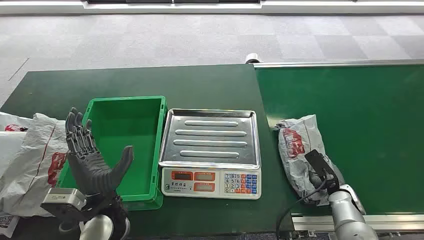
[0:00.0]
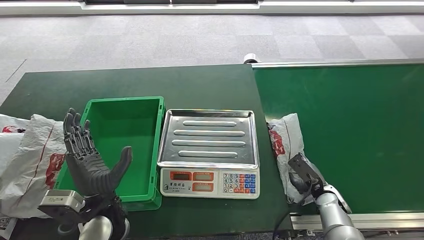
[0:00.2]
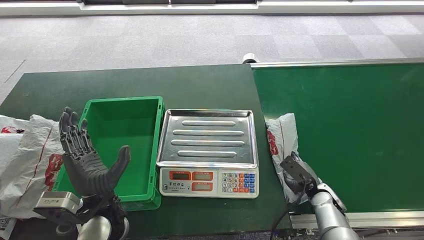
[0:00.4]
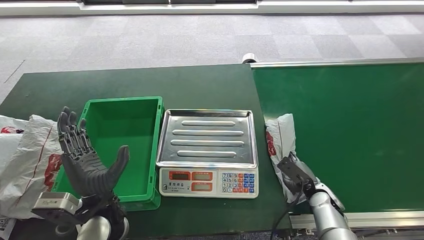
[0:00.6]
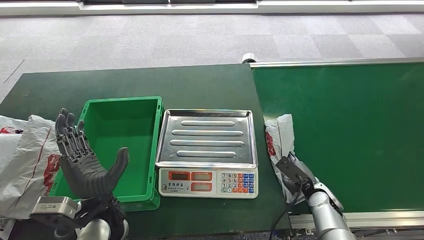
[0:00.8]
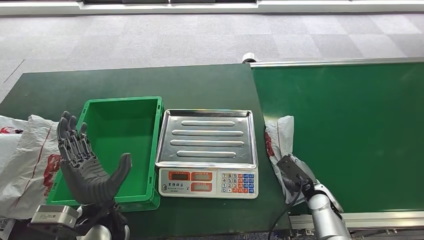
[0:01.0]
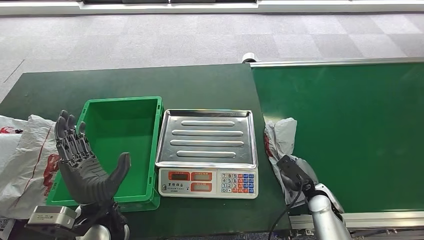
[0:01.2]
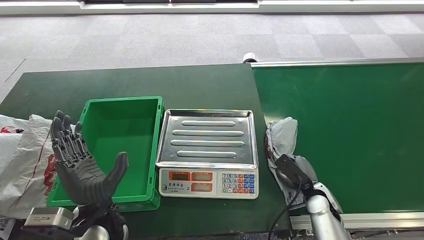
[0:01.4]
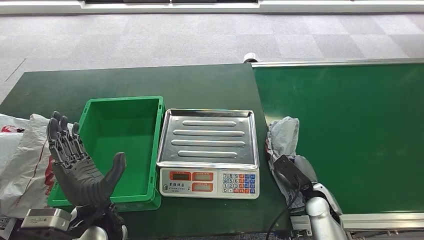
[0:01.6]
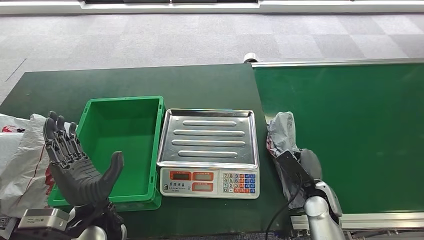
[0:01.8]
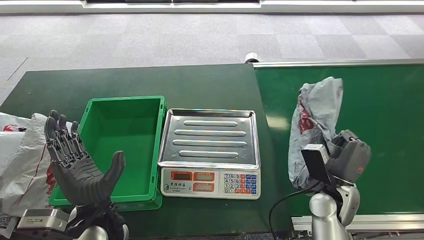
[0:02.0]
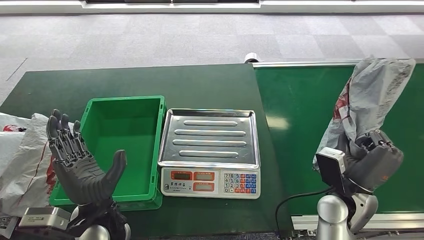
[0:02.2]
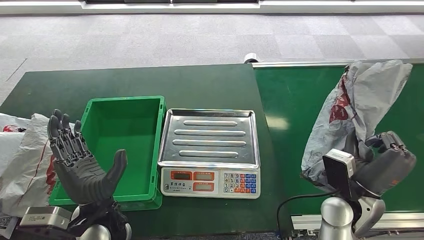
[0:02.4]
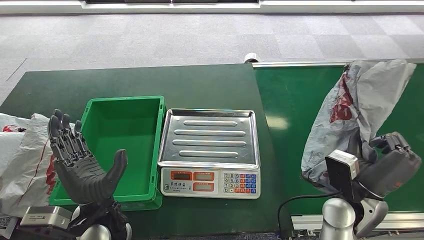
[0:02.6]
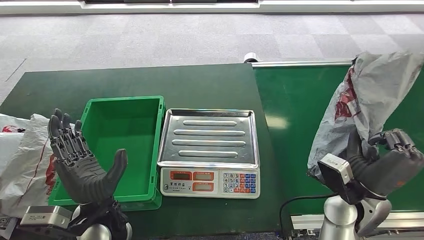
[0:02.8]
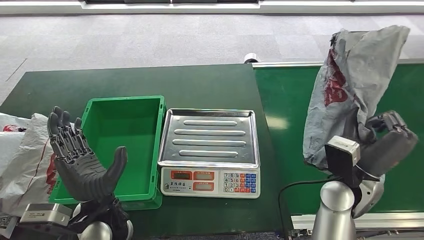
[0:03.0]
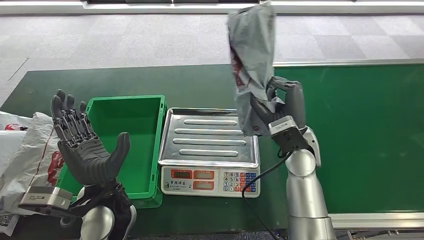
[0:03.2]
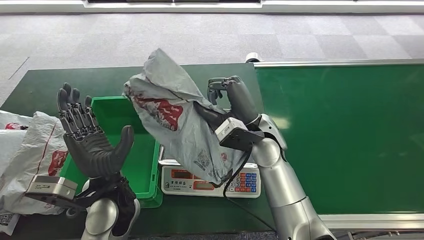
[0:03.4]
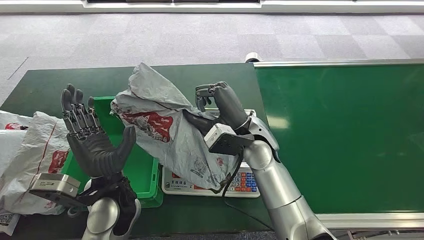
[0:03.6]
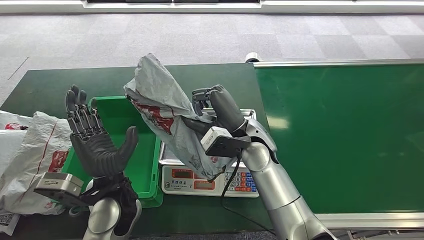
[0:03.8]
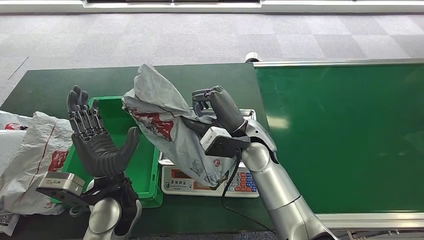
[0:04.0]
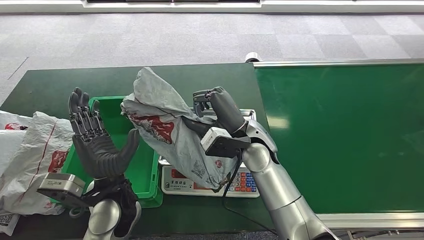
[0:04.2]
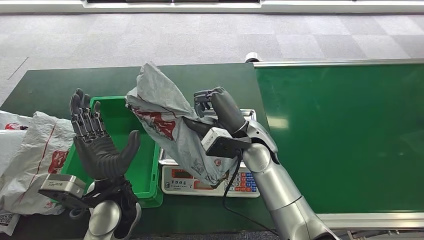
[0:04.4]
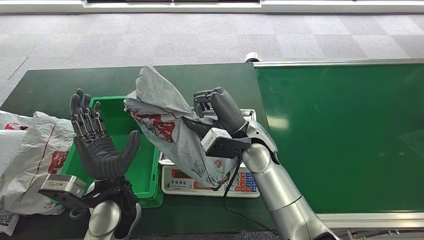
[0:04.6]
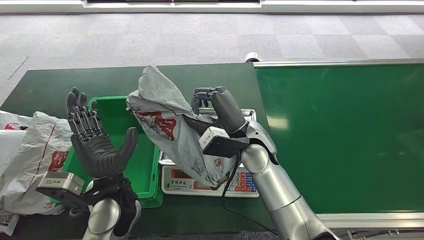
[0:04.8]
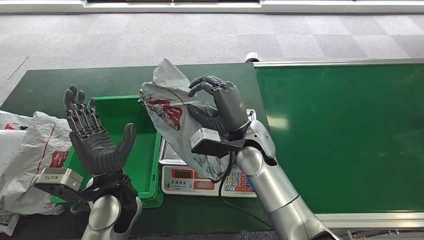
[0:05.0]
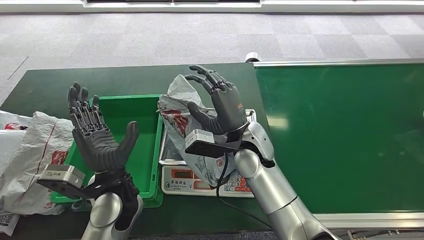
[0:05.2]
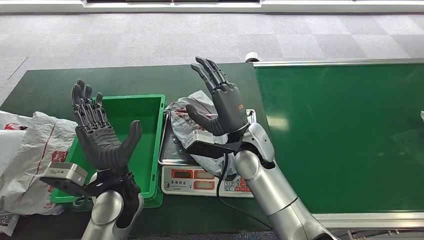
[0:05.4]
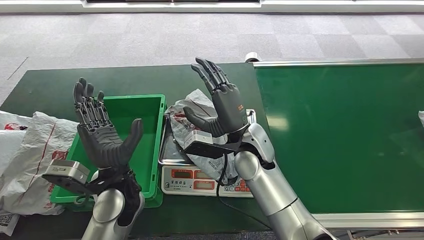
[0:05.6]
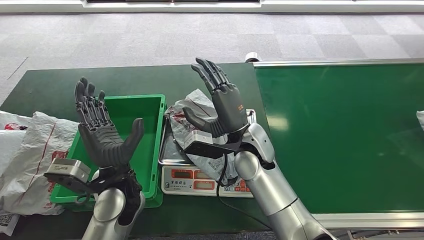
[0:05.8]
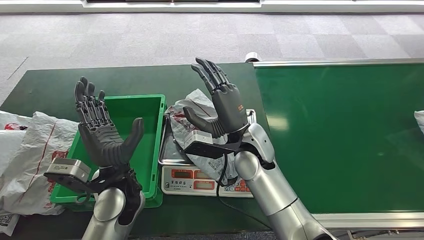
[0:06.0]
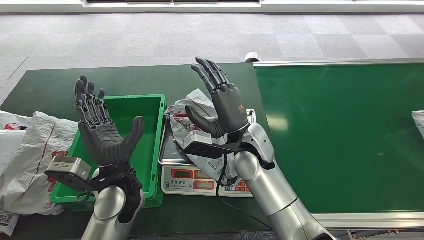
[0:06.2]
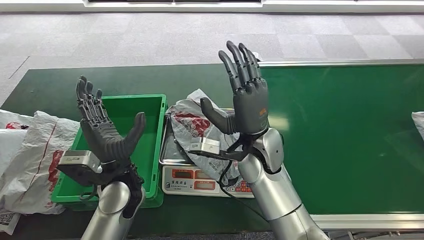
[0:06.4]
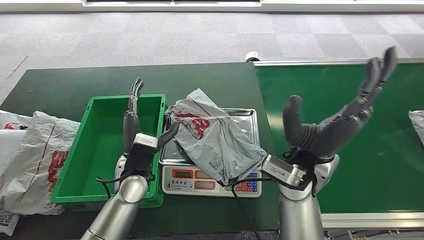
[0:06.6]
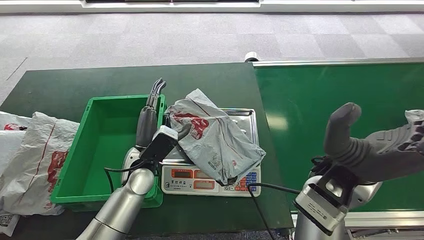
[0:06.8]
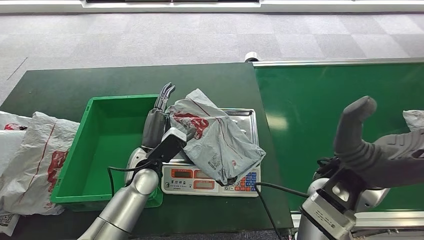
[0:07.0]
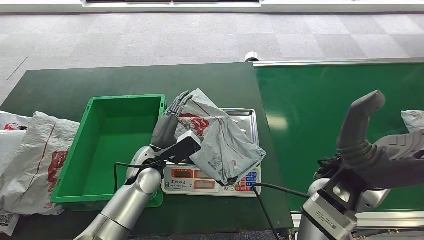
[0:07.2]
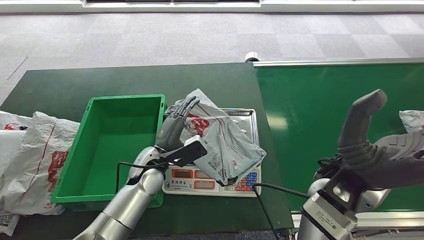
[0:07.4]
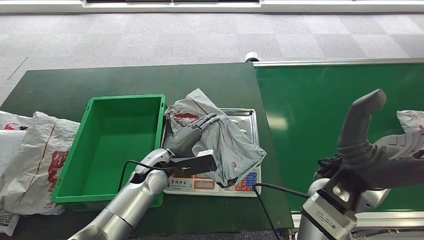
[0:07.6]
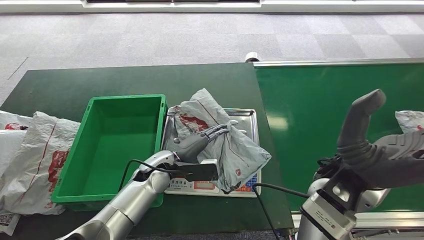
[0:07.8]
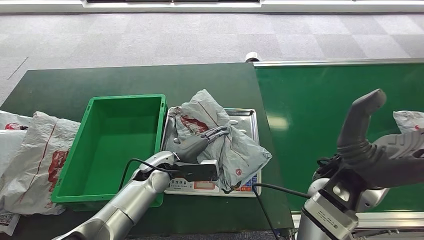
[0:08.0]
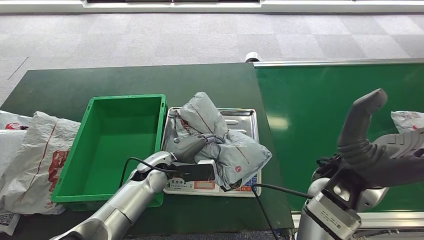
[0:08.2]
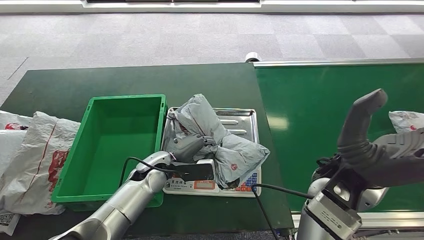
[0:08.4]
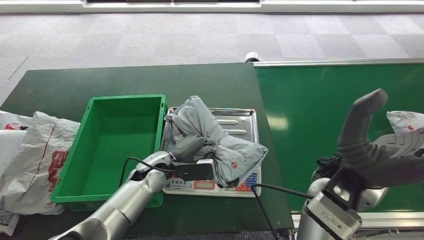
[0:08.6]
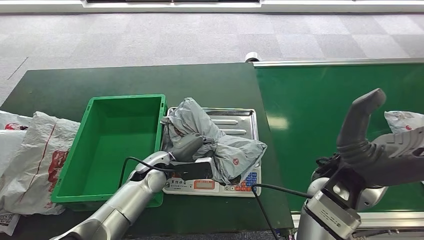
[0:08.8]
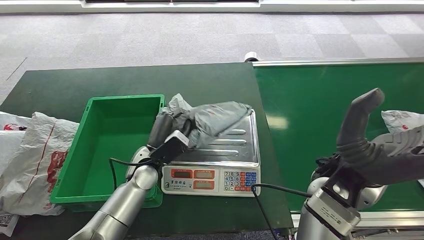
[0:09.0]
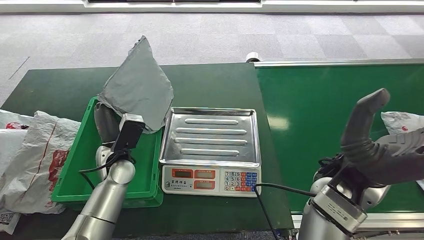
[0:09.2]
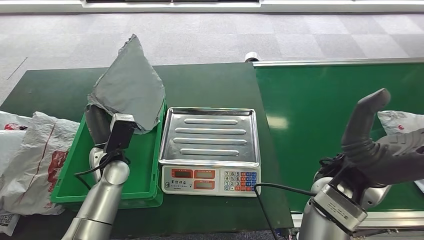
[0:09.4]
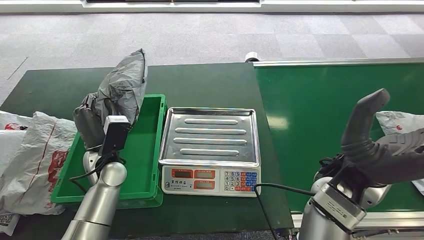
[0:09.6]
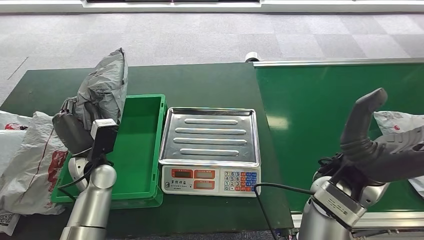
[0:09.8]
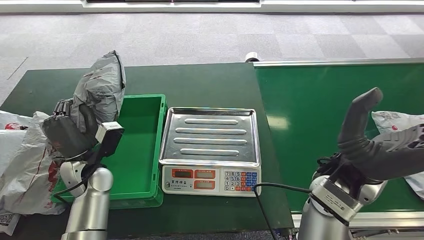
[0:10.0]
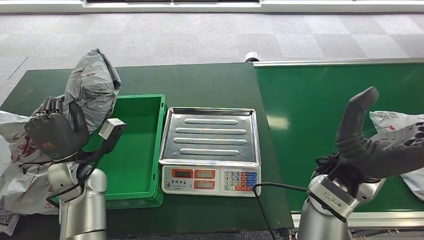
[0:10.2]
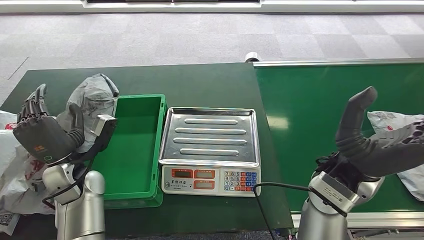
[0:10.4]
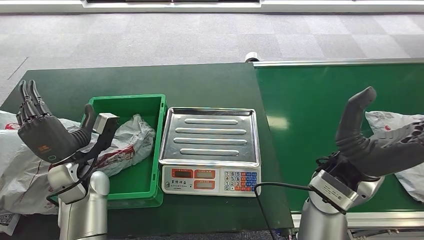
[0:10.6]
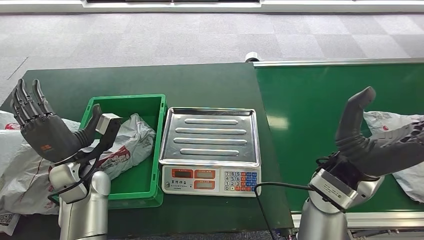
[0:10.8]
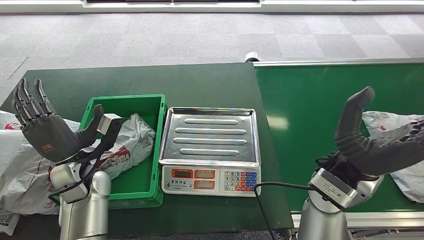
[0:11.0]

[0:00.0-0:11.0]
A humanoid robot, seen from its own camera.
Step, 0:00.0 to 0:02.4: Pick up the package from the conveyor belt.
Step, 0:02.6 to 0:06.0: Place the package onto the inbound machine.
Step, 0:06.4 to 0:09.2: Pick up the package from the inbound machine.
Step, 0:09.4 to 0:11.0: Place the package into the parcel locker.
0:07.8 to 0:09.4: The left hand travels to the left by approximately 10 cm.
0:09.4 to 0:11.0: The left hand shifts by some 5 cm.

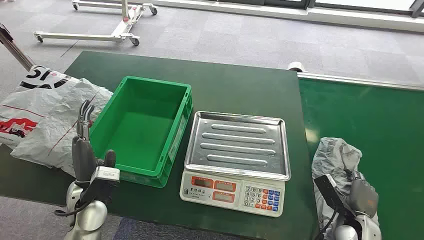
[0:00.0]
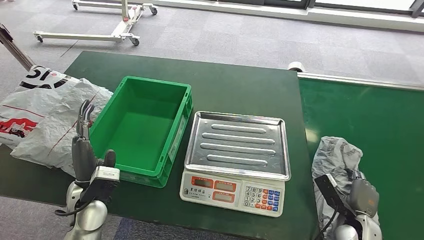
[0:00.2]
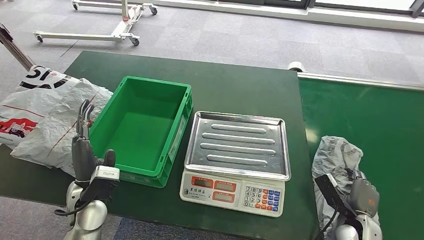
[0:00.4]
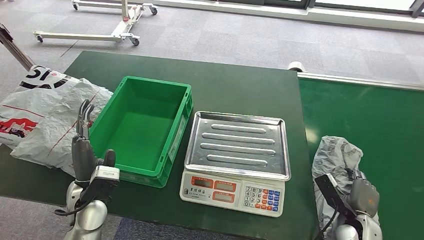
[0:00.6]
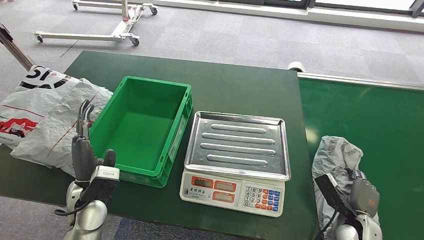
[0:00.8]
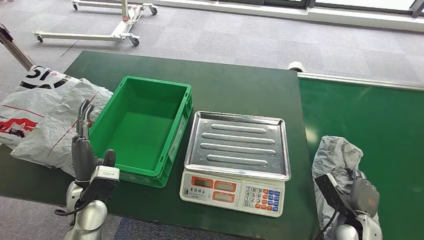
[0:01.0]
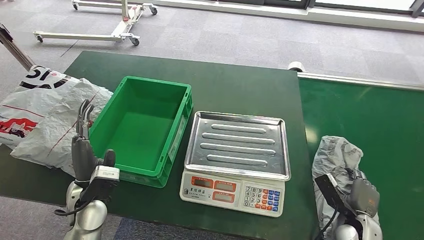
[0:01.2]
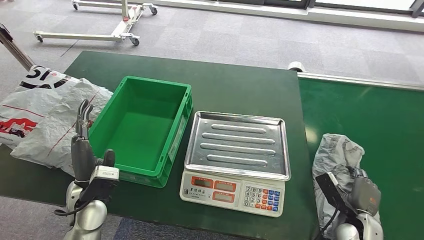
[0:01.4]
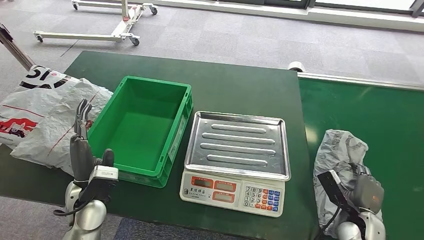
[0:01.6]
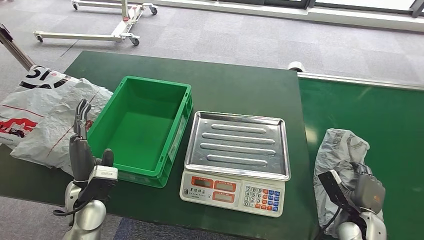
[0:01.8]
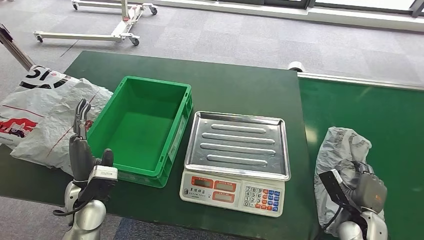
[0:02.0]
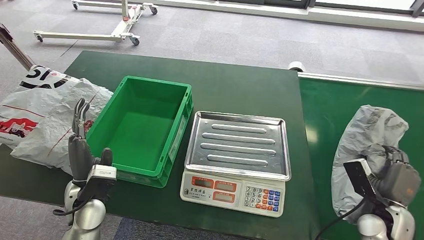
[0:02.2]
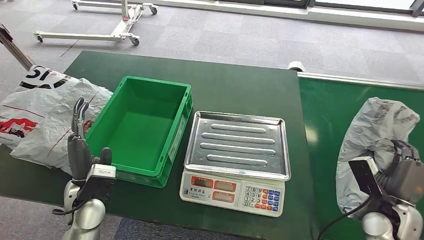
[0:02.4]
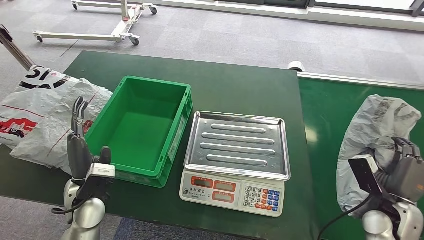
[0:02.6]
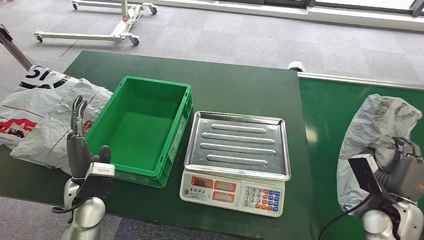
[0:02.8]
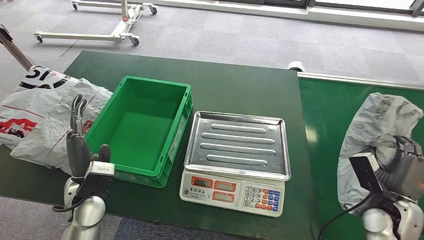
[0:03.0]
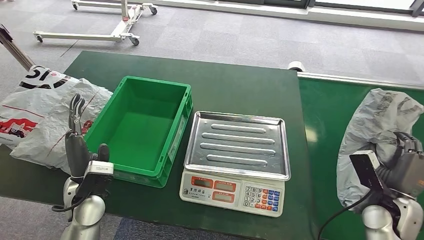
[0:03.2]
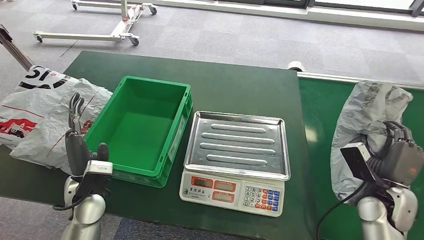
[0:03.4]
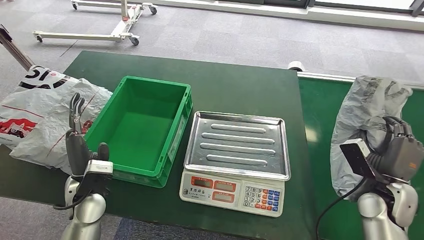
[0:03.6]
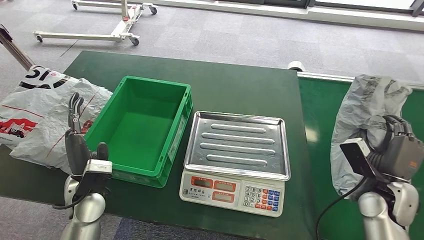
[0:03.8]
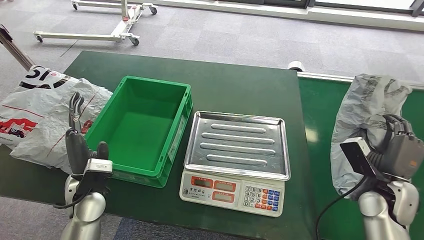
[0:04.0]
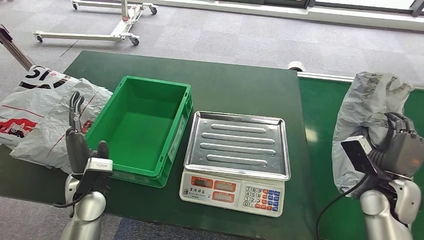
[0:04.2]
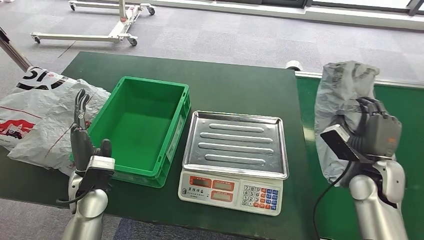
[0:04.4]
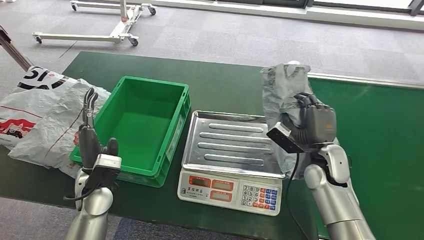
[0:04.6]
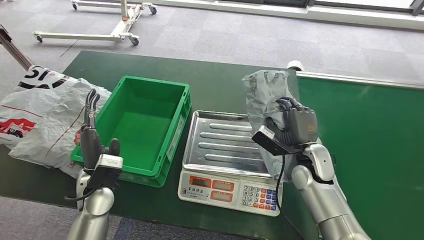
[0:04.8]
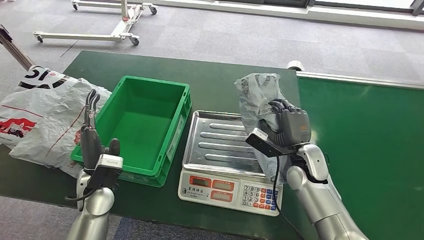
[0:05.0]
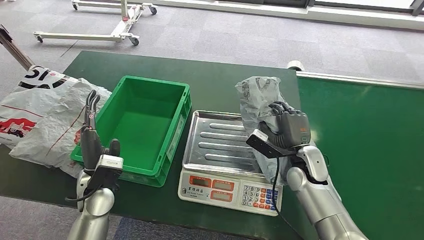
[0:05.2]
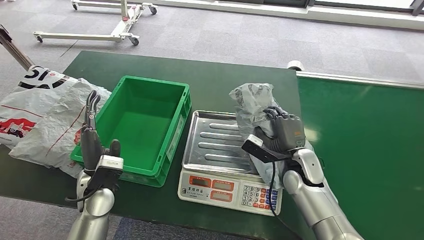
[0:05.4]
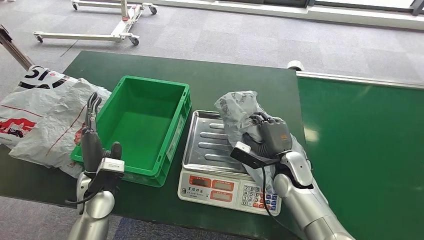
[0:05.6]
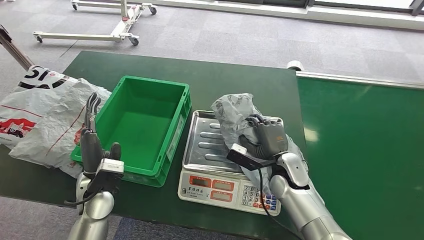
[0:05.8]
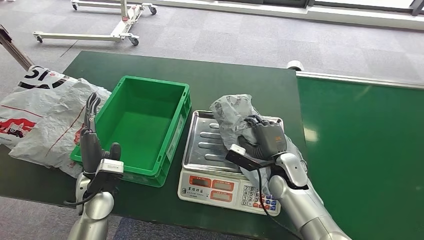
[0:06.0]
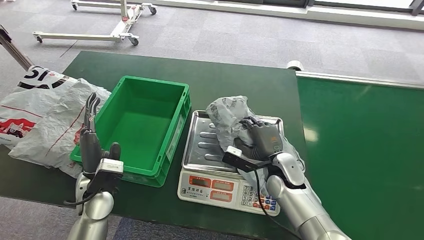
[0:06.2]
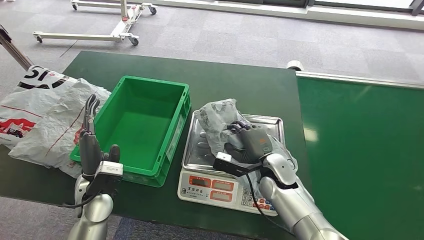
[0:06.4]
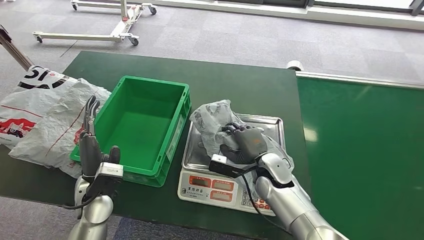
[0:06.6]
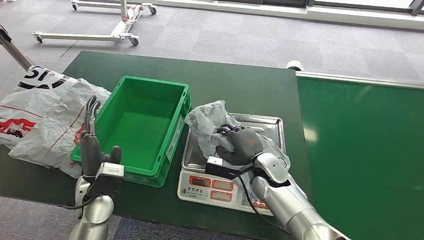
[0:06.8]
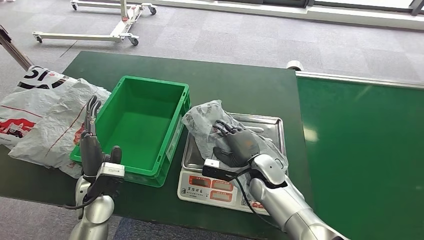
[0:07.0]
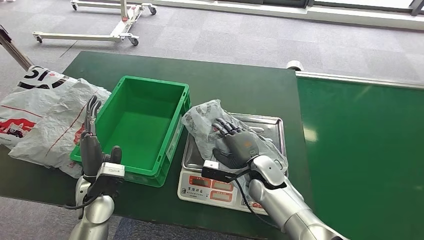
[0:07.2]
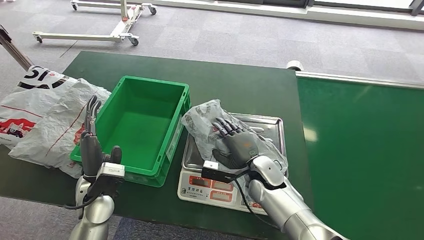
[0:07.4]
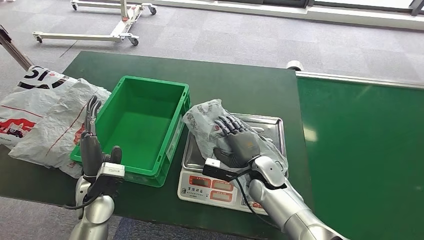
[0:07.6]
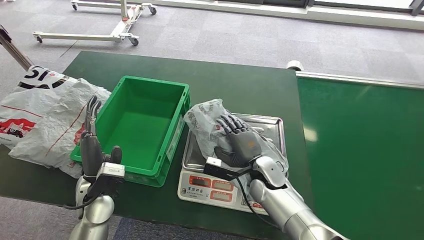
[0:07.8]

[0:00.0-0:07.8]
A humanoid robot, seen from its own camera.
Step, 0:00.0 to 0:03.2: Pick up the package from the conveyor belt.
0:01.6 to 0:03.2: The right hand is displaced upward by approximately 10 cm.
0:04.6 to 0:06.2: The right hand heads to the left and downward, covering about 10 cm.
0:06.2 to 0:07.8: The hands stay close to where they were, moving slightly.
